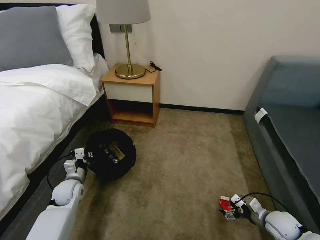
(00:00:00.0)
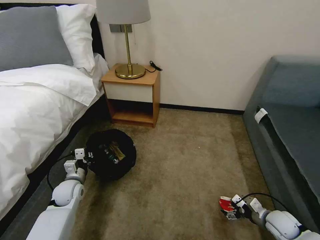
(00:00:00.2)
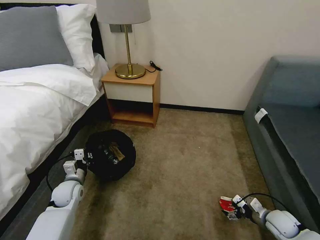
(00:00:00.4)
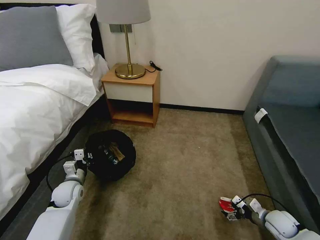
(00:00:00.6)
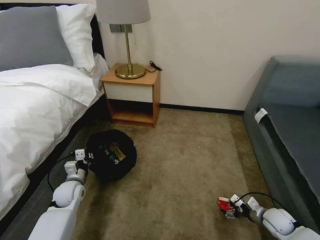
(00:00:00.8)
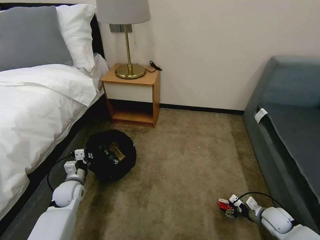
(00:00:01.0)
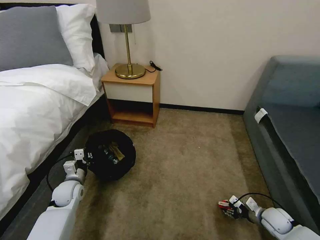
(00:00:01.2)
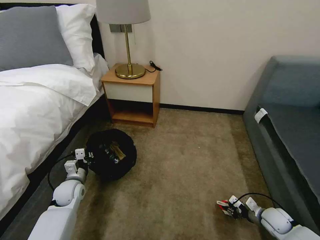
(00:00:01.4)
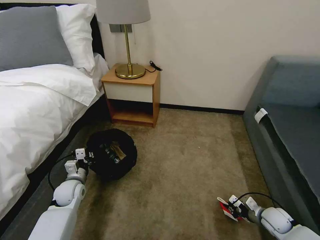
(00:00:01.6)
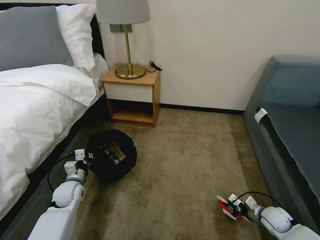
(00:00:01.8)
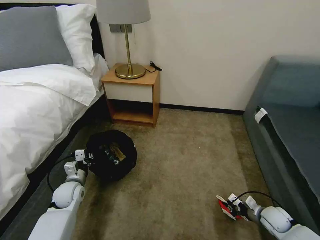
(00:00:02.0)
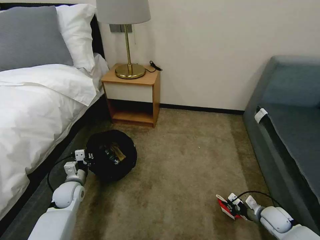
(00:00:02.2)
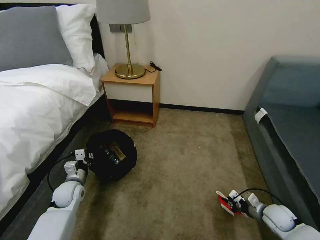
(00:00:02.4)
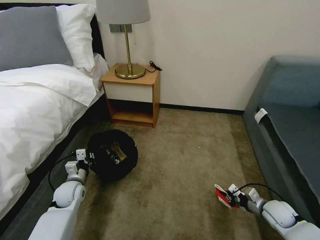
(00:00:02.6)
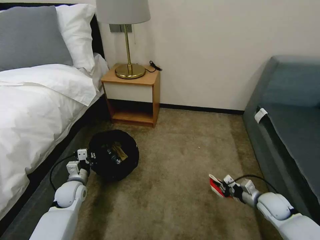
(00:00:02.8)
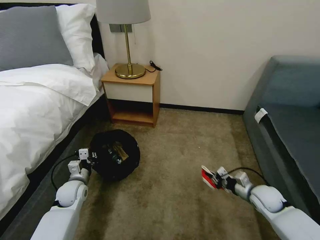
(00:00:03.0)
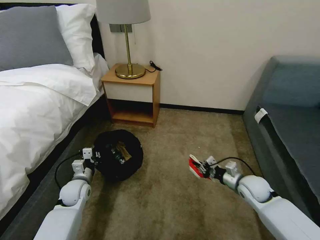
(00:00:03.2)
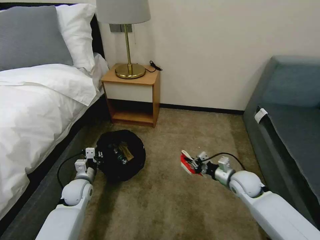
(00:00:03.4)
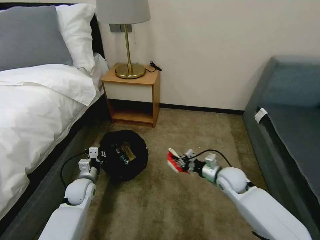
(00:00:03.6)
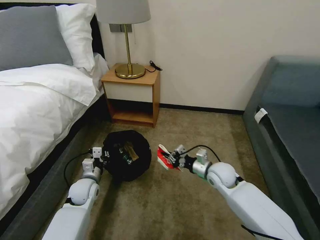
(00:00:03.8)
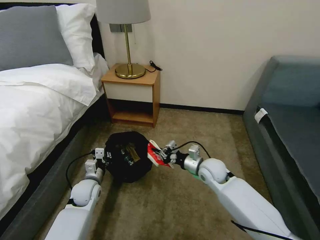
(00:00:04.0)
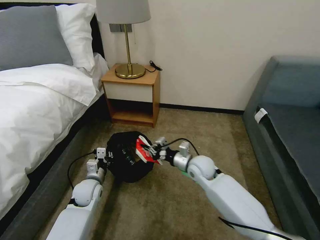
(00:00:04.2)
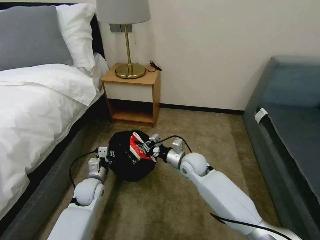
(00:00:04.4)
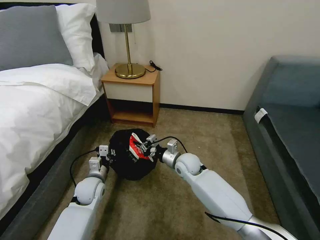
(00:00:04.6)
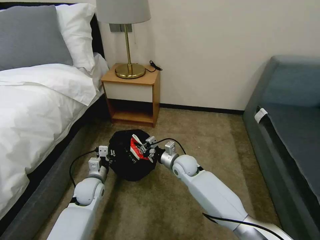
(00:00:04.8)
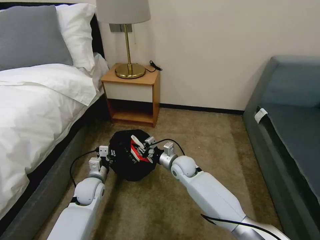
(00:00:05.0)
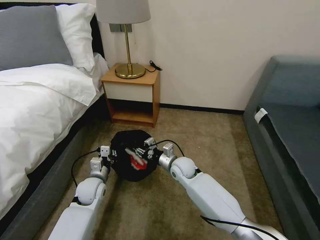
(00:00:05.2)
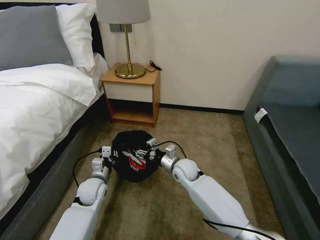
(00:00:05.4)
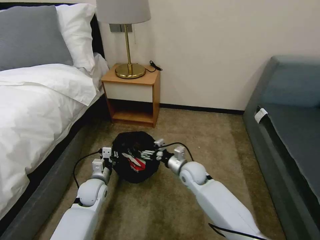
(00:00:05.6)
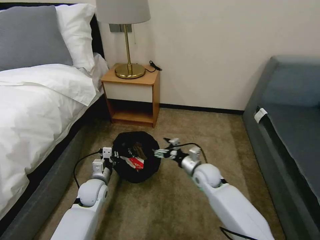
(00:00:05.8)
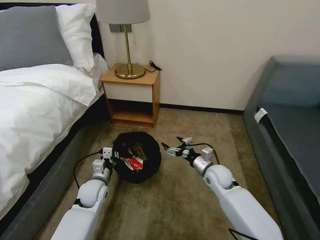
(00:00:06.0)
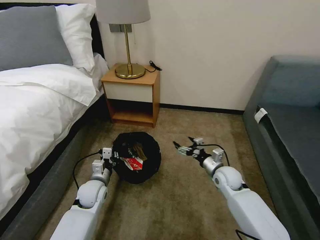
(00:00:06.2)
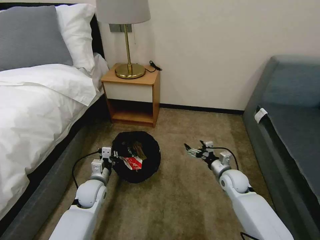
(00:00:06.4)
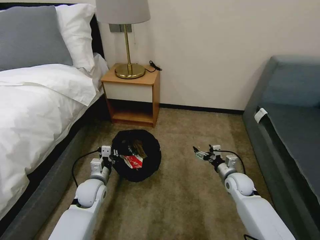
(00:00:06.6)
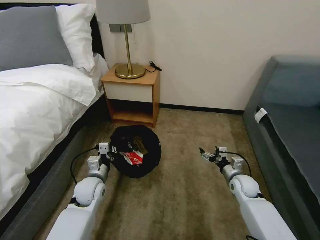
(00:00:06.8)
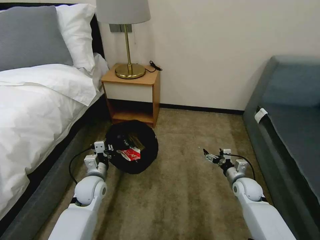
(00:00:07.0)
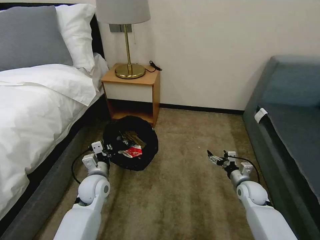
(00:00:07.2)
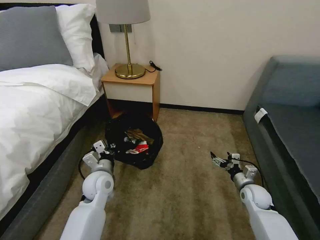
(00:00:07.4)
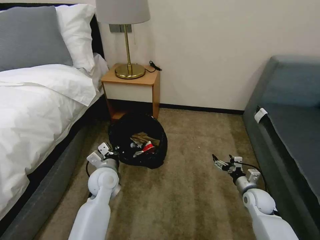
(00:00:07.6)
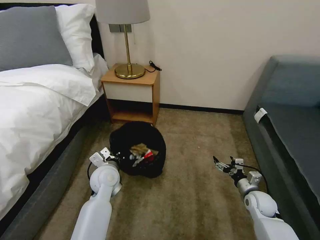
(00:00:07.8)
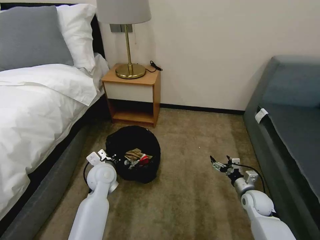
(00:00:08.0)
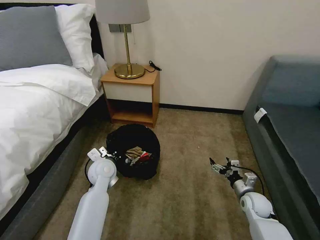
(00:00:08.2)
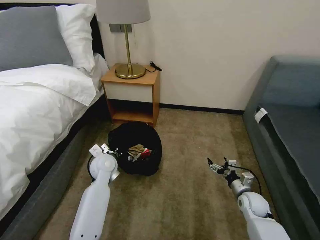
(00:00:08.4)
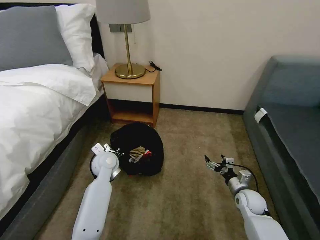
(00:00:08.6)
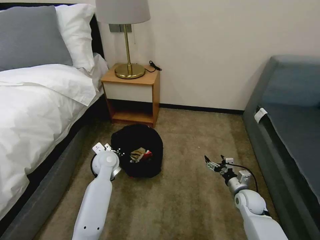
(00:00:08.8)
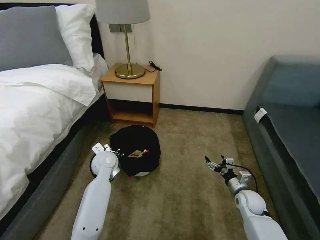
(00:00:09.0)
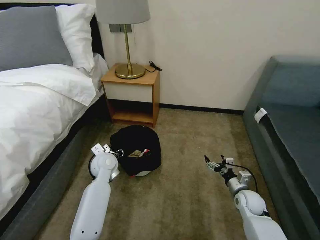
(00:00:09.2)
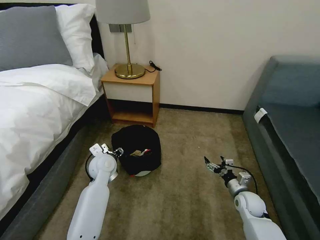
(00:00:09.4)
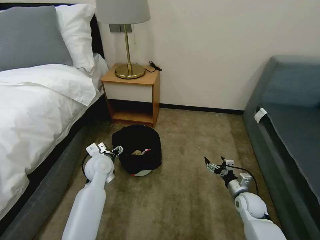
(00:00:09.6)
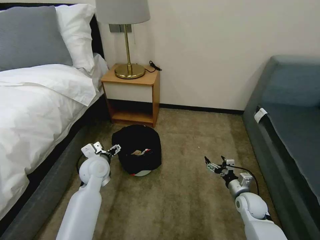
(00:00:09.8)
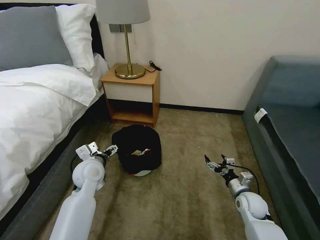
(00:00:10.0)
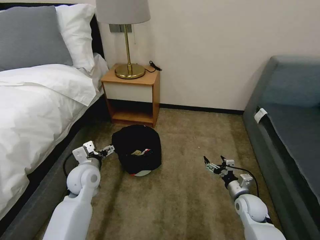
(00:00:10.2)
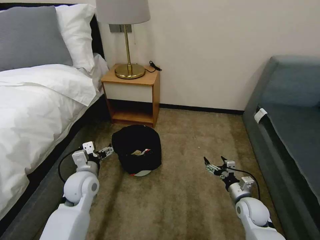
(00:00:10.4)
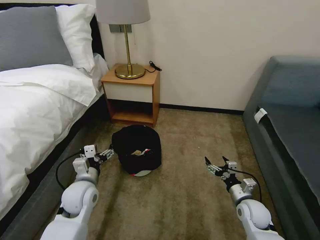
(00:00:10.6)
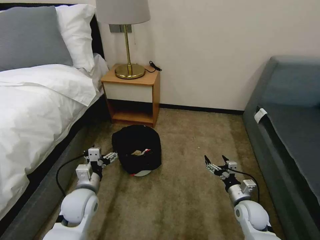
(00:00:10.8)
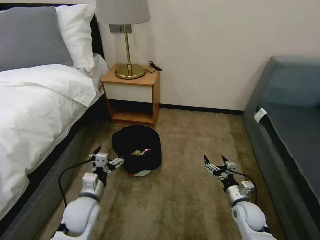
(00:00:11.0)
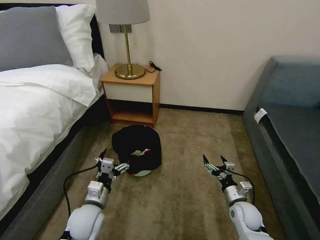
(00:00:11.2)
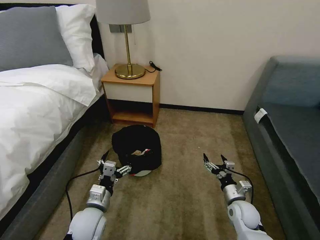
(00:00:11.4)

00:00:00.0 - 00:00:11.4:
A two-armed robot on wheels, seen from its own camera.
Task of the whole recording: Pick up the trash bin, then pick up the garbage on the floor and place it into the trash bin.
00:00:00.0 - 00:00:01.4: The right gripper closes its fingers.
00:00:01.4 - 00:00:02.8: The right gripper is displaced upward by roughly 5 cm.
00:00:02.8 - 00:00:04.2: The left gripper goes some 5 cm to the right. Meanwhile the right gripper is displaced to the left and forward by approximately 30 cm.
00:00:04.2 - 00:00:05.6: The right gripper opens up.
00:00:05.6 - 00:00:07.2: The left gripper ends up approximately 5 cm from where it was, while the right gripper travels to the right by some 25 cm.
00:00:07.2 - 00:00:08.6: The left gripper heads forward, covering about 10 cm.
00:00:08.6 - 00:00:10.0: The left gripper shifts some 5 cm backward, and opens up.
00:00:10.0 - 00:00:11.4: The left gripper is displaced backward and downward by roughly 15 cm.

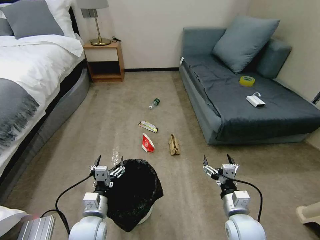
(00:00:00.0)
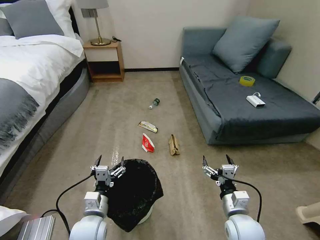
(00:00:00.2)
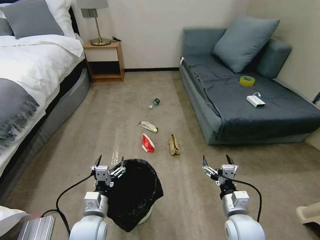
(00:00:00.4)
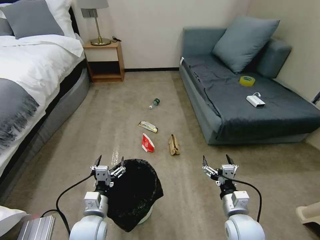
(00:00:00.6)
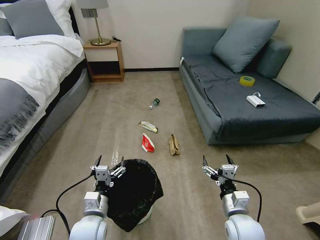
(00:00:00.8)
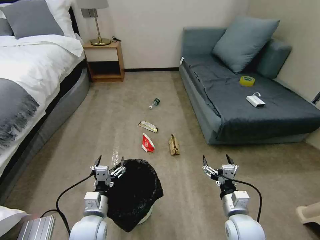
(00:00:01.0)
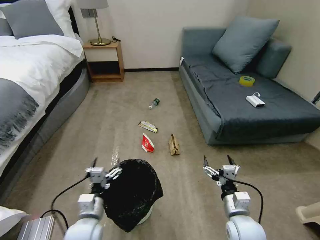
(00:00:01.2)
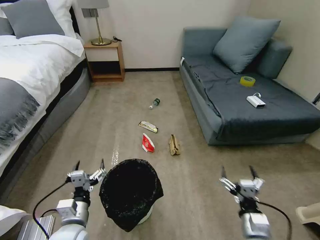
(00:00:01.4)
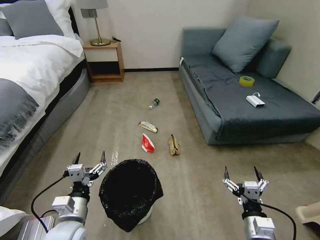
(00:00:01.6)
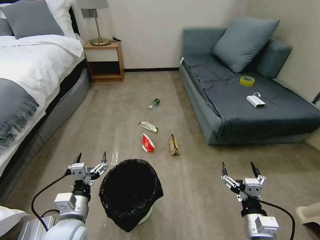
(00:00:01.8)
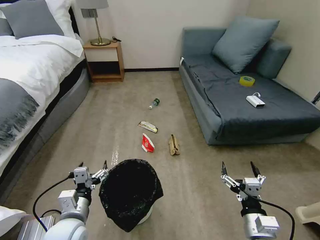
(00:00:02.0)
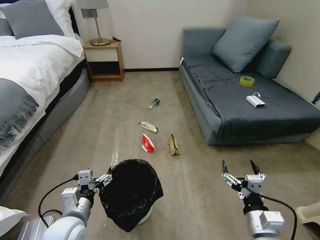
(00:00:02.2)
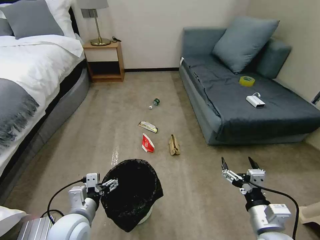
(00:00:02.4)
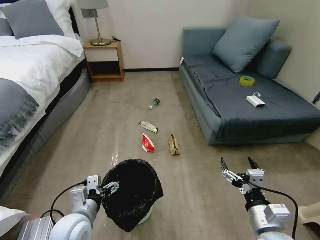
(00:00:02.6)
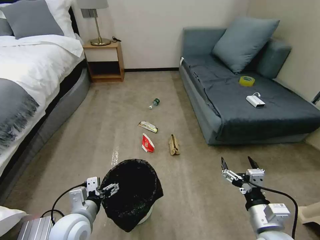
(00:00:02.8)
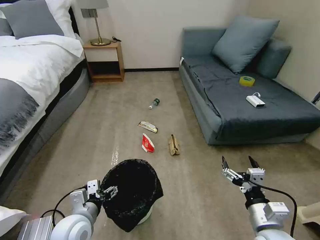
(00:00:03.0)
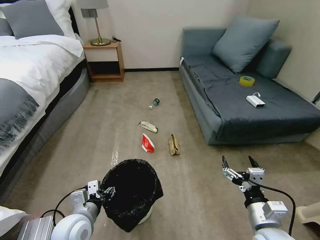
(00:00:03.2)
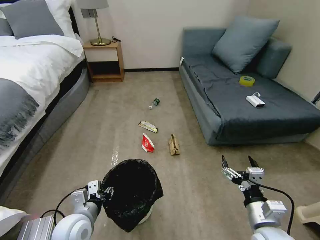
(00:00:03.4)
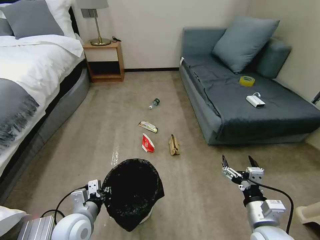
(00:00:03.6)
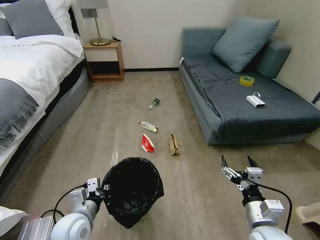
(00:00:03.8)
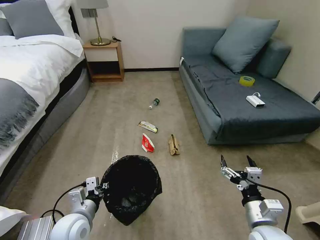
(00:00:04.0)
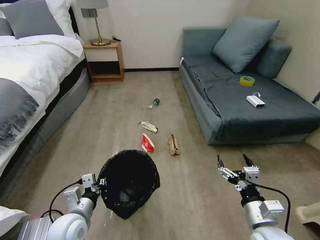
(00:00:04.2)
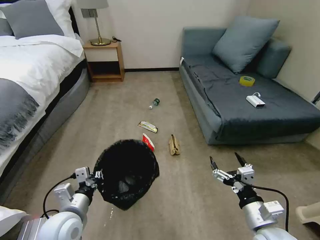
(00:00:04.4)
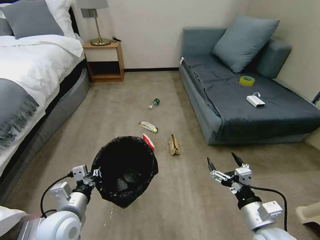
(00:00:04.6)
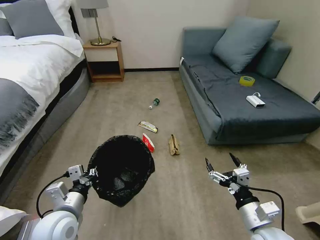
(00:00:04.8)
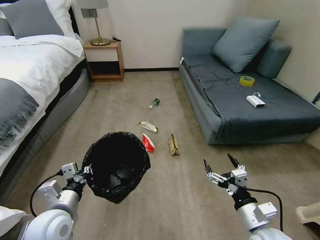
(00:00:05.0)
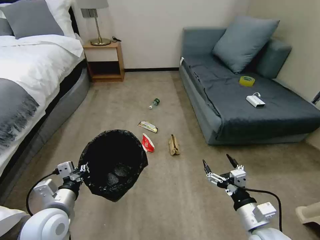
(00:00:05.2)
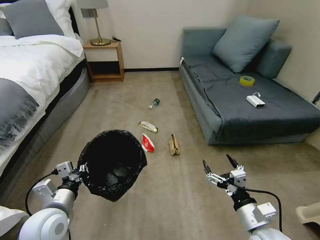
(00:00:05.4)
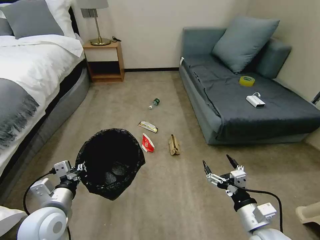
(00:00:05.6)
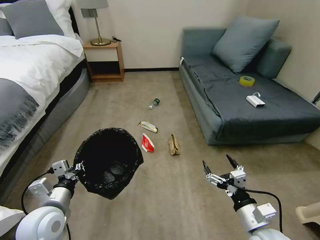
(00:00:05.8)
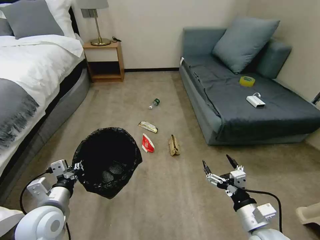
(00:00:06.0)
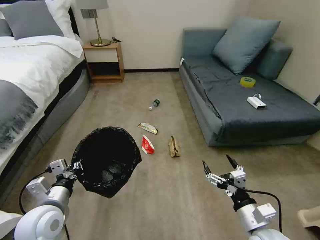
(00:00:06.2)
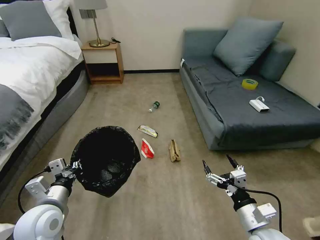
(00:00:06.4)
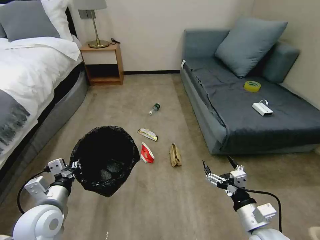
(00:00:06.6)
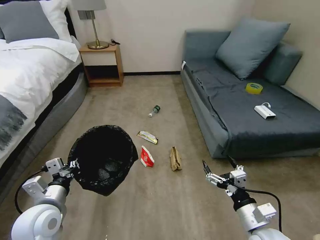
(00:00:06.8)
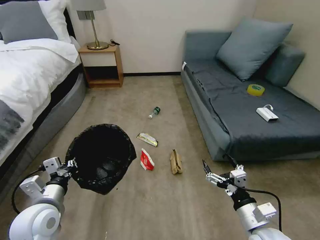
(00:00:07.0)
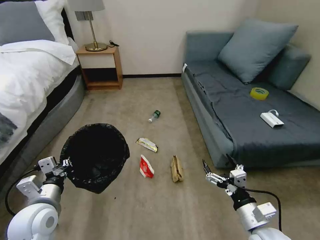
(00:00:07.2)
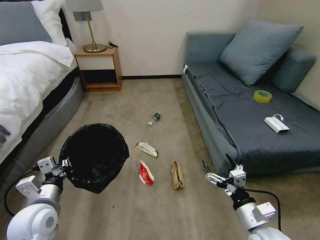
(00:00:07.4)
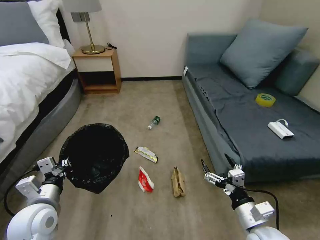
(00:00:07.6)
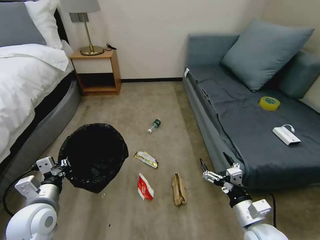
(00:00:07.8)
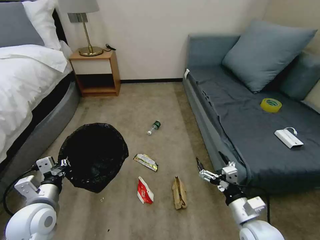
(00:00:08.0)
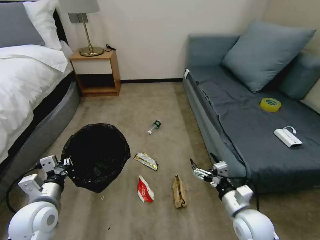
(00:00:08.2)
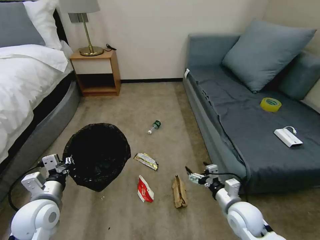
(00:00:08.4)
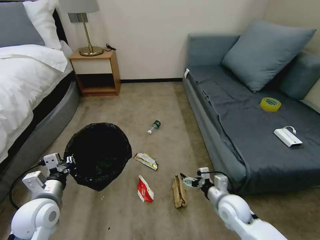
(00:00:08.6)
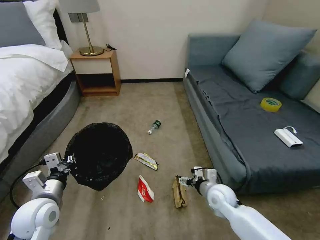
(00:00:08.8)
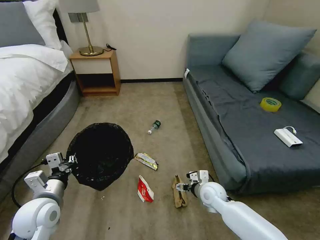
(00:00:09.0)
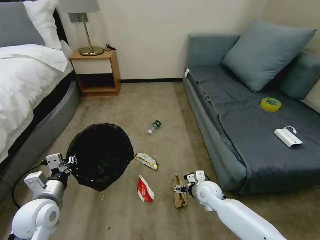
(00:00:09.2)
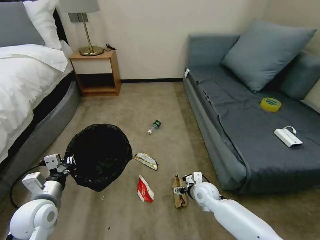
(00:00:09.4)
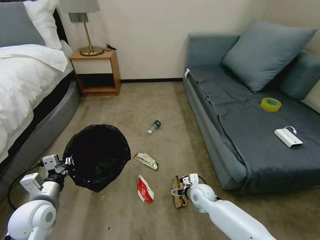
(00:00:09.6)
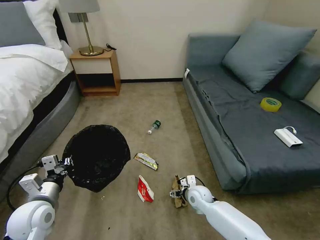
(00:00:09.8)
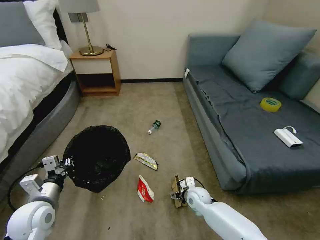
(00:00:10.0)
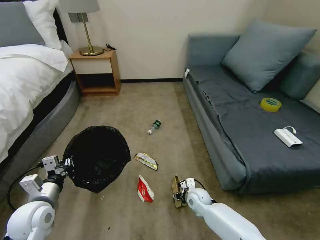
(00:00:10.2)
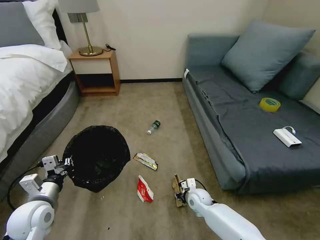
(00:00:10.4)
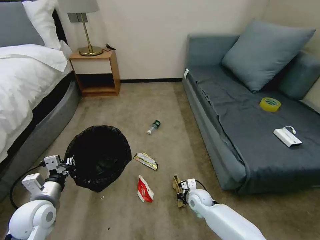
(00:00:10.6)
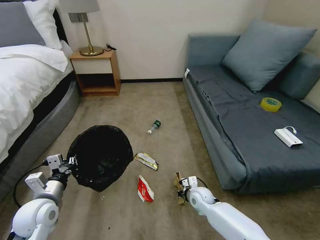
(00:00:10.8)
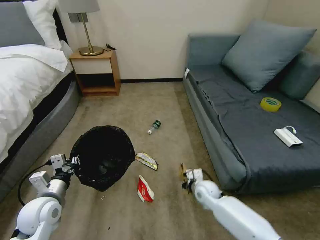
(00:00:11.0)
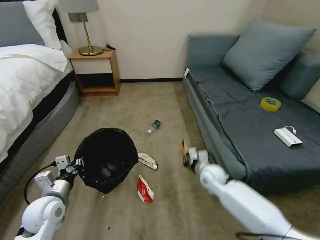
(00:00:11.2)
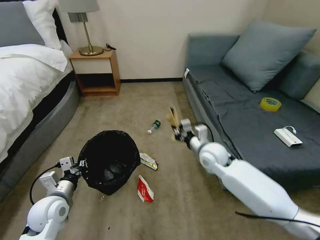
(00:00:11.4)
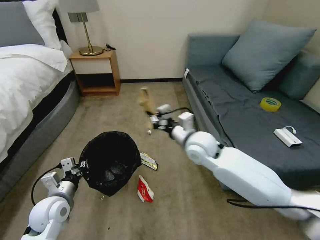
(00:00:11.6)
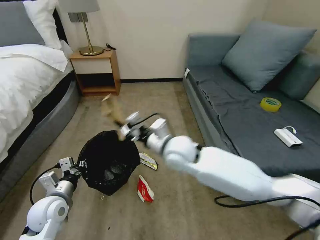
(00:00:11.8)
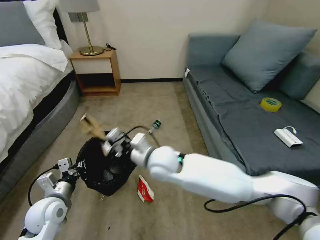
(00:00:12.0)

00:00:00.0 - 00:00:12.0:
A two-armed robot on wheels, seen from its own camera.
Task of the whole recording: Pick up the trash bin, then pick up the garbage on the floor and place it into the trash bin.
00:00:01.6 - 00:00:03.0: The right gripper moves upward, approximately 5 cm.
00:00:03.0 - 00:00:04.4: The left gripper closes up.
00:00:04.4 - 00:00:06.0: The left gripper ends up approximately 5 cm from where it was.
00:00:07.6 - 00:00:09.0: The right gripper moves forward, downward and to the left, roughly 20 cm.
00:00:09.0 - 00:00:10.4: The right gripper heads downward, covering some 10 cm, and closes.
00:00:10.4 - 00:00:12.0: The right gripper shifts about 30 cm upward and to the left, and closes.
